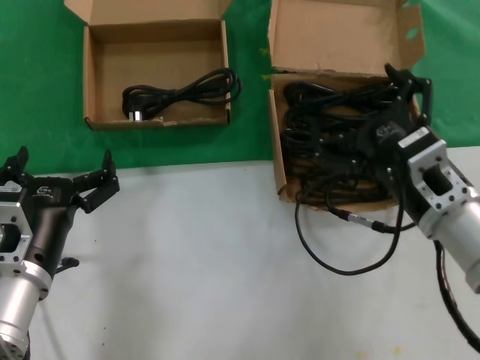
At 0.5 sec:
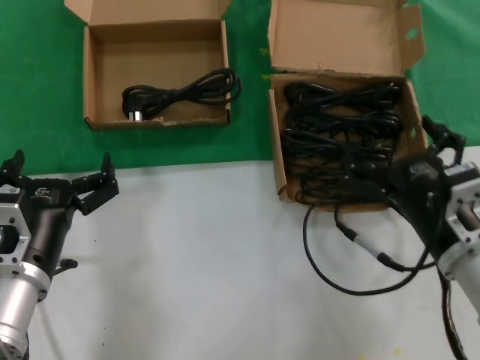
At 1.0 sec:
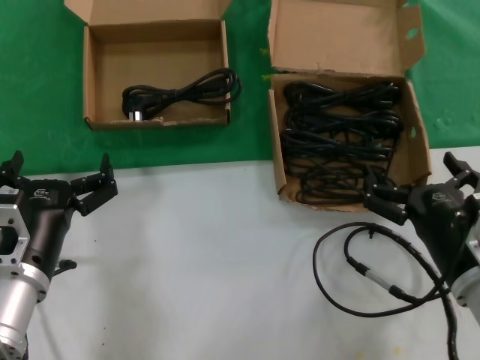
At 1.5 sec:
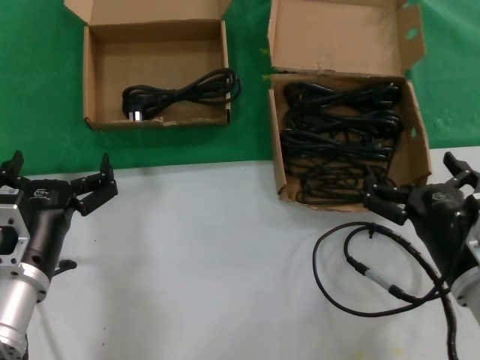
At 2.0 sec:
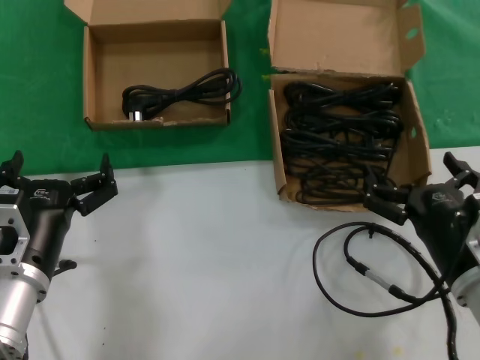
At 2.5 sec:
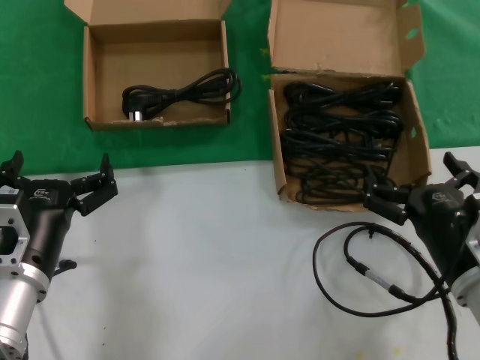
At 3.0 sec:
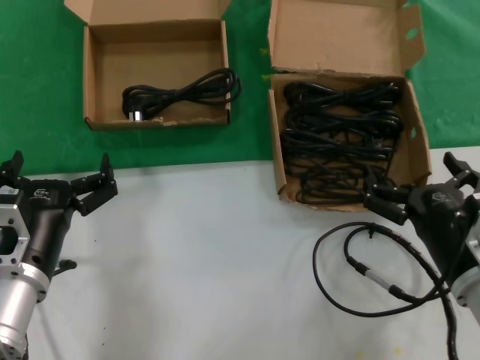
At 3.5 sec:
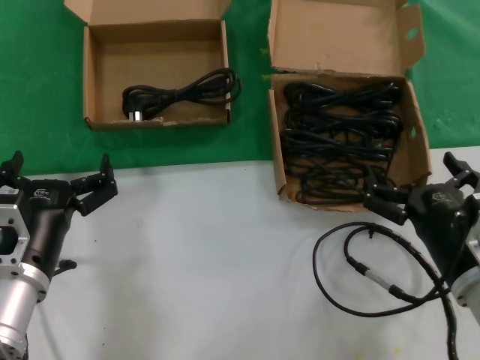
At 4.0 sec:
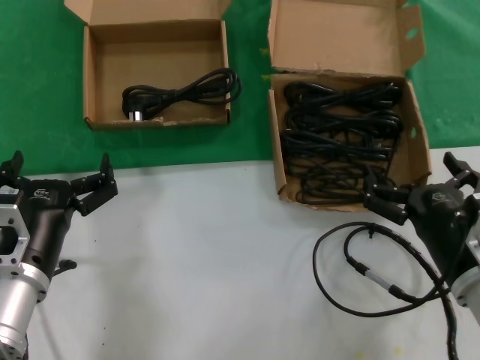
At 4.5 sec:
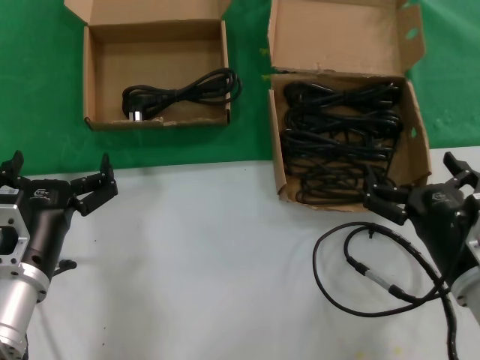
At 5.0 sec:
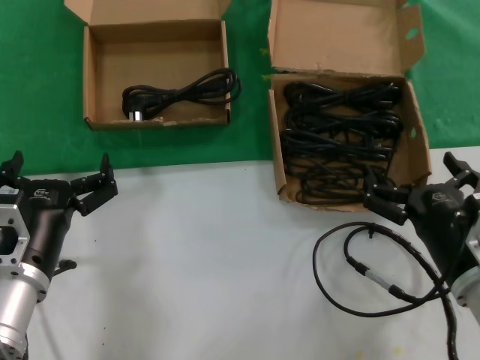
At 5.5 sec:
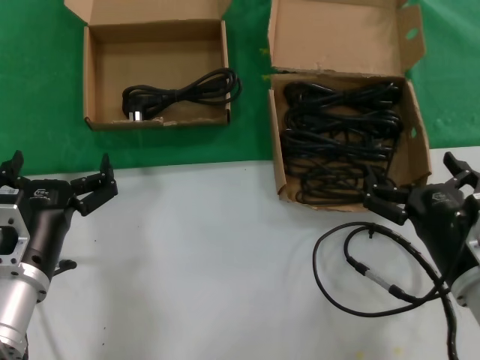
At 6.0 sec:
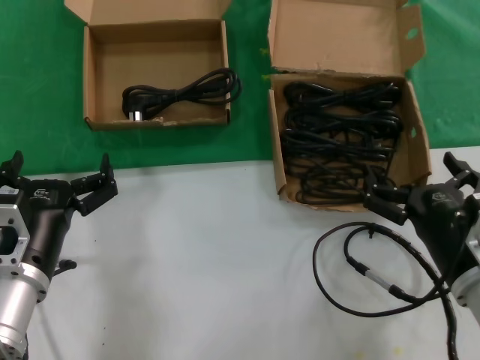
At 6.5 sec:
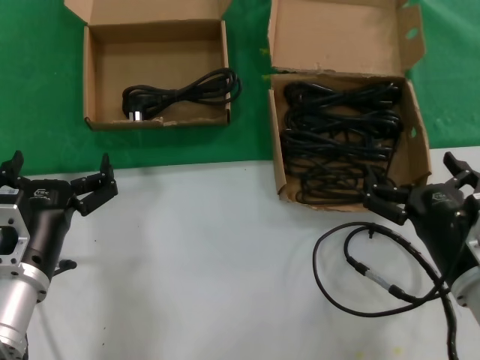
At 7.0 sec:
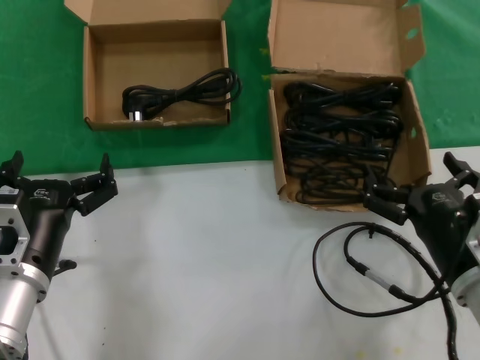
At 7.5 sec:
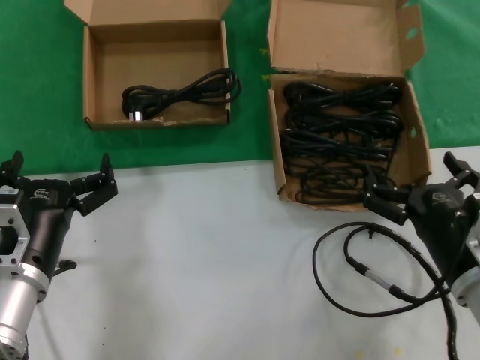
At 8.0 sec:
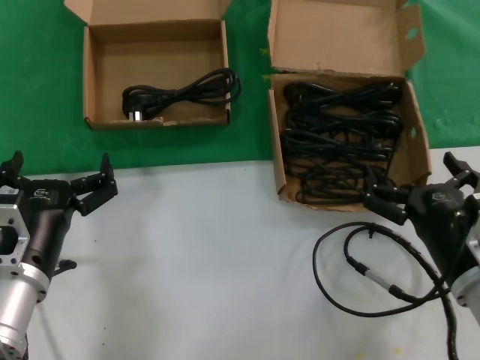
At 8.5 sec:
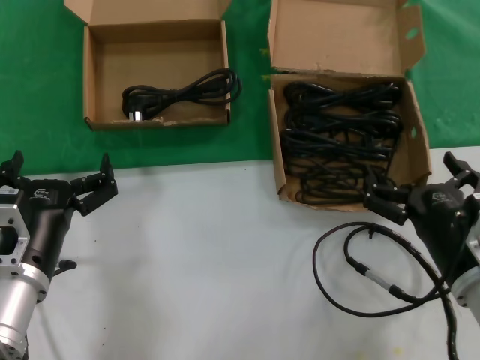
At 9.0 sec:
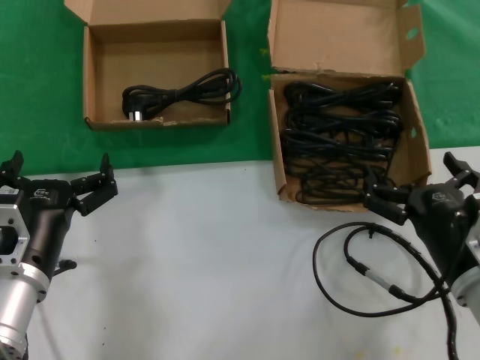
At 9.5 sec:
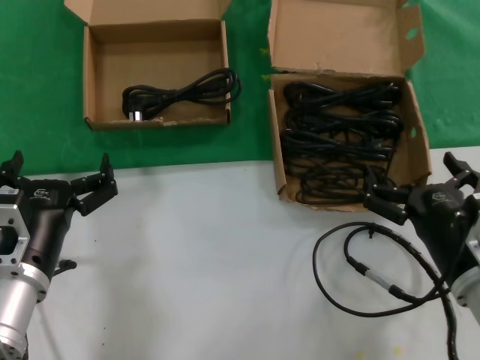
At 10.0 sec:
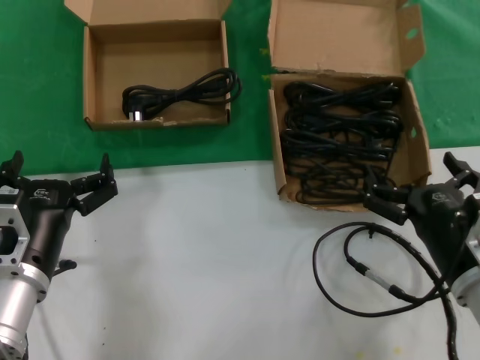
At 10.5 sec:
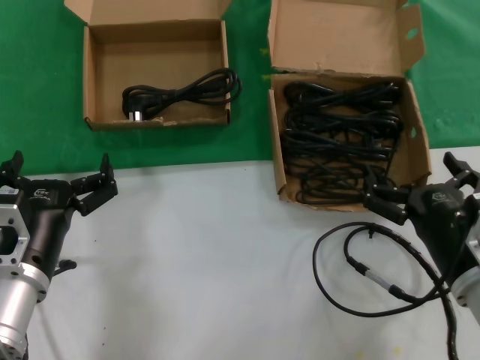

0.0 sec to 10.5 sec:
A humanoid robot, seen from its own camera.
Task of the whole recording: take the parts from the box containing them and put them into an empty box.
0.0 sec to 2.0 sec: The right hand heads downward, covering approximately 5 cm.
2.0 sec to 10.5 sec: Both hands stay put.

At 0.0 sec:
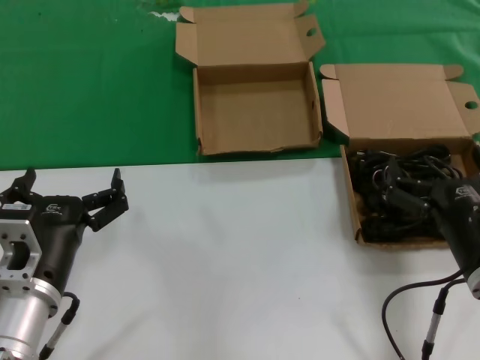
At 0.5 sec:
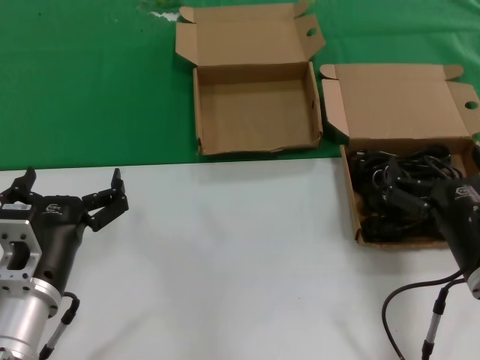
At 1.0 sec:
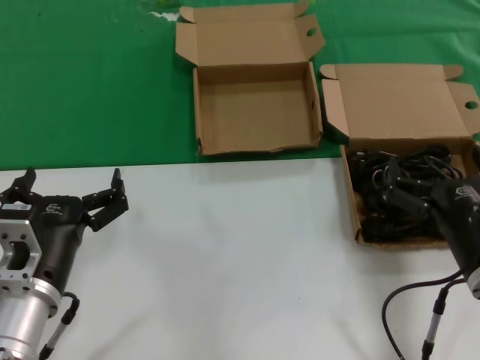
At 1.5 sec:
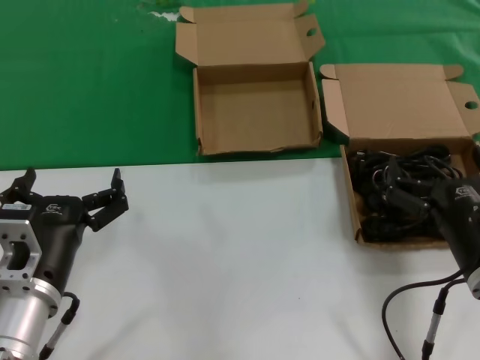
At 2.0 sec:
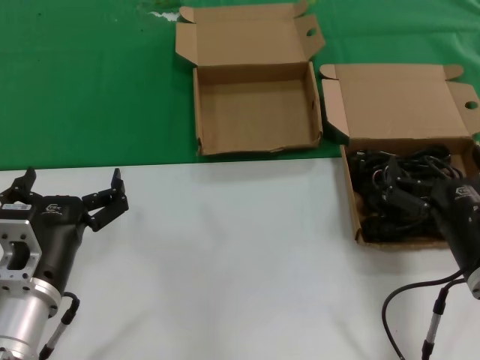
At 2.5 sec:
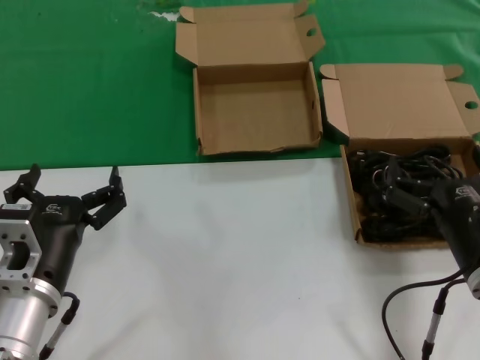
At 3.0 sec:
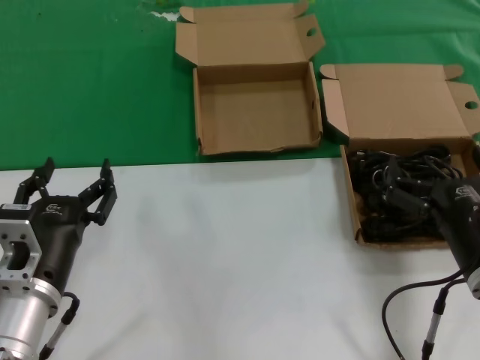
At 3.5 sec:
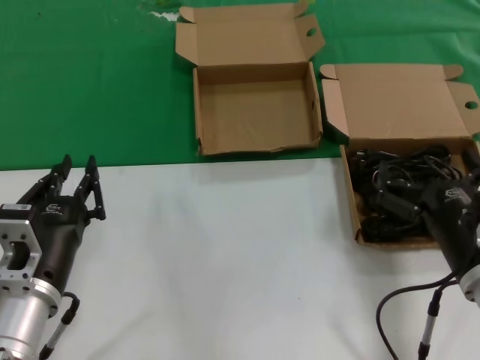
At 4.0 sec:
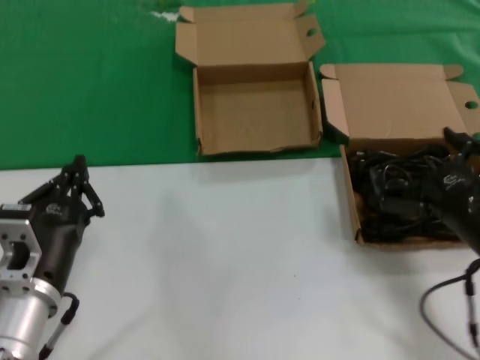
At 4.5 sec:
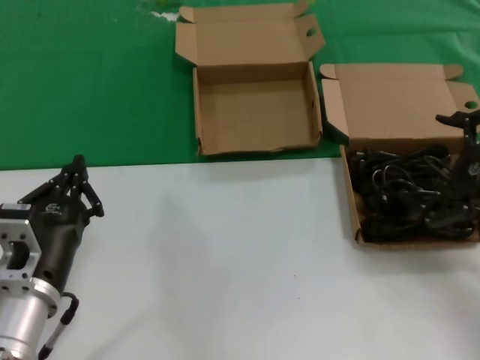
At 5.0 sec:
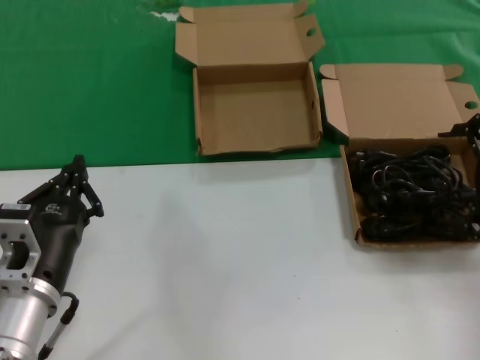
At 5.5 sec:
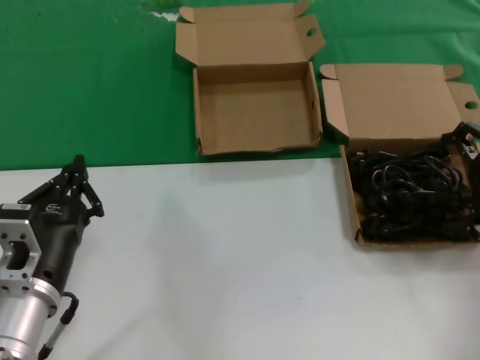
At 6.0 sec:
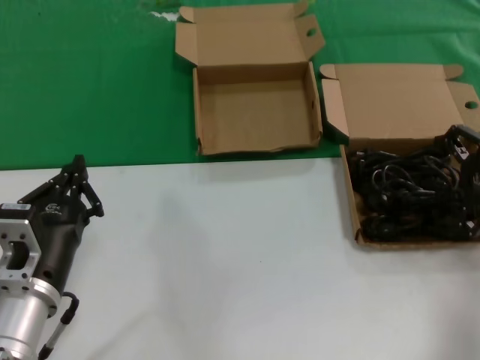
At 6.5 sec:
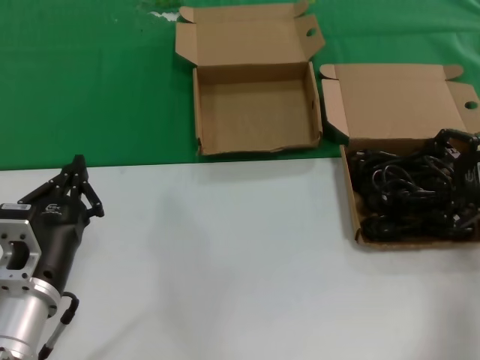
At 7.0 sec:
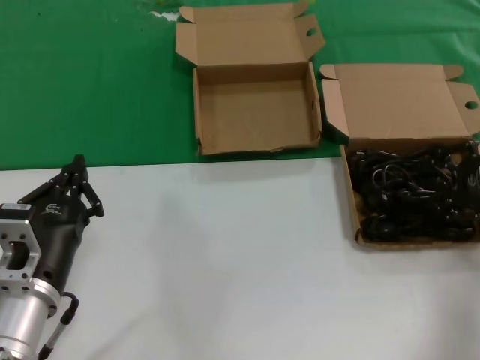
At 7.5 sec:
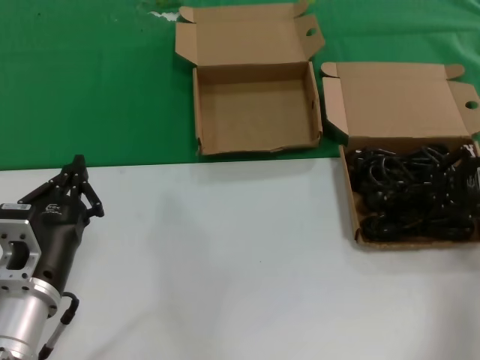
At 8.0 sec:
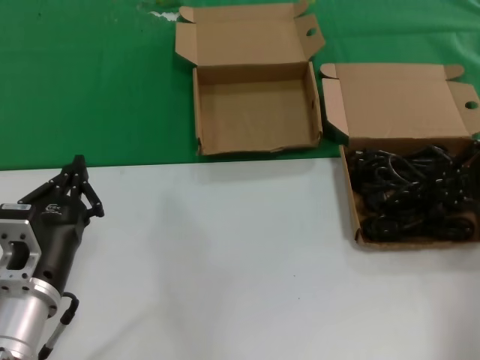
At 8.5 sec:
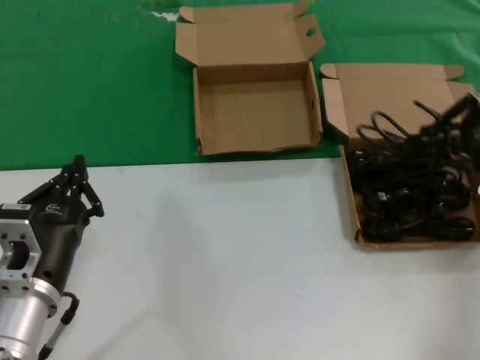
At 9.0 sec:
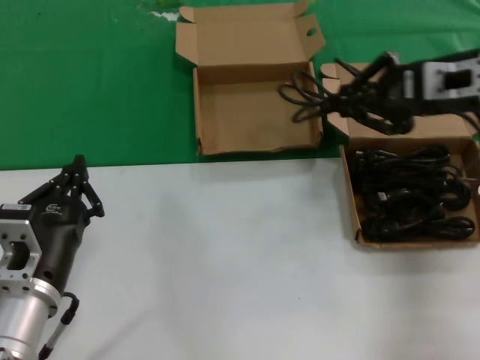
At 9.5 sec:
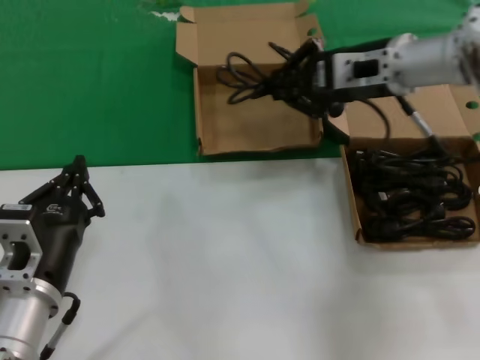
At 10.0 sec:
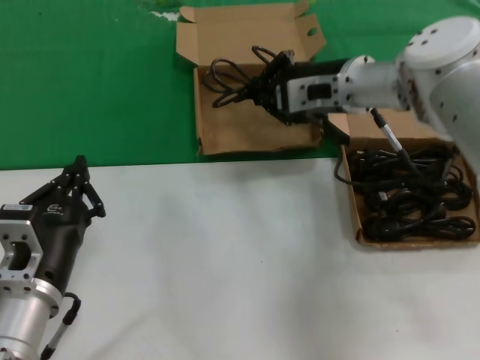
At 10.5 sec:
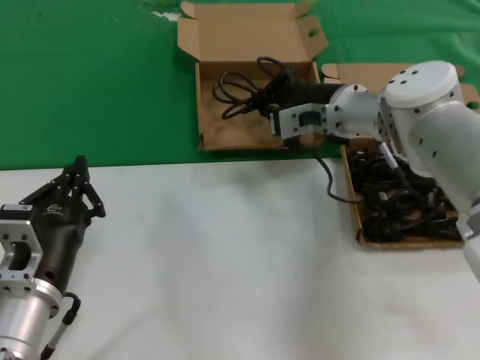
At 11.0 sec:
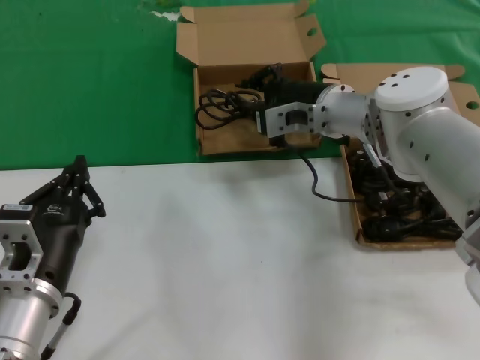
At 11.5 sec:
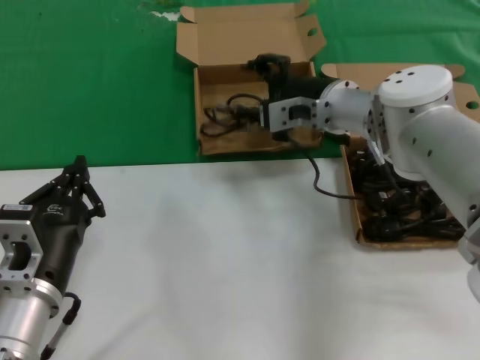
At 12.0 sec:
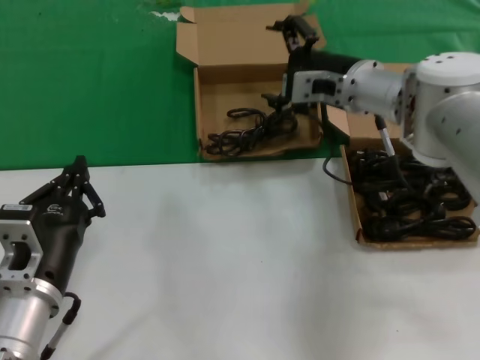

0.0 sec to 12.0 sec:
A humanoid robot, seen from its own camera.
Task of the whole recording: take the parts from the box containing them and put them into an empty box.
Step, 0.0 sec to 7.5 sec: Grasp the data cable.
Step, 8.0 sec to 11.5 sec: Place the data cable in the another box.
0.0 sec to 2.0 sec: Both hands stay put.
2.0 sec to 4.0 sec: The right hand moves approximately 5 cm.
4.0 sec to 6.0 sec: The right hand is displaced forward, to the right and upward by about 20 cm.
8.0 sec to 10.0 sec: The right hand moves to the left and forward, about 30 cm.
10.0 sec to 12.0 sec: The hands make only small movements.

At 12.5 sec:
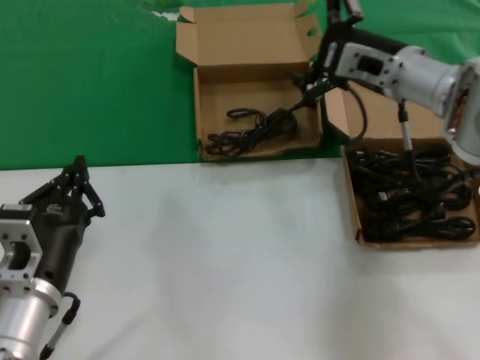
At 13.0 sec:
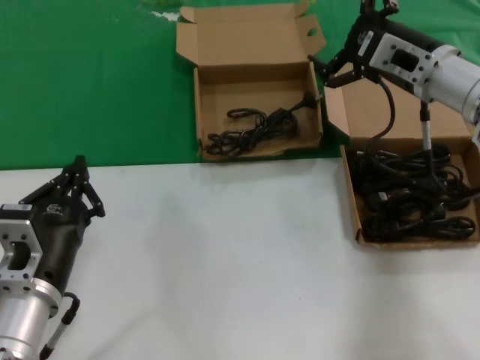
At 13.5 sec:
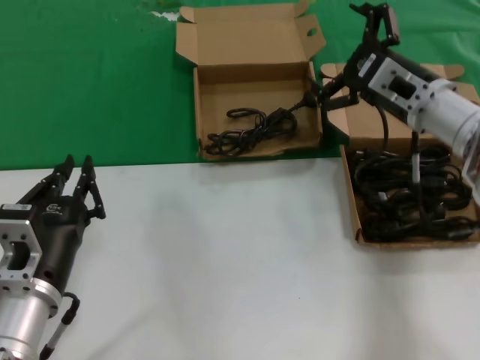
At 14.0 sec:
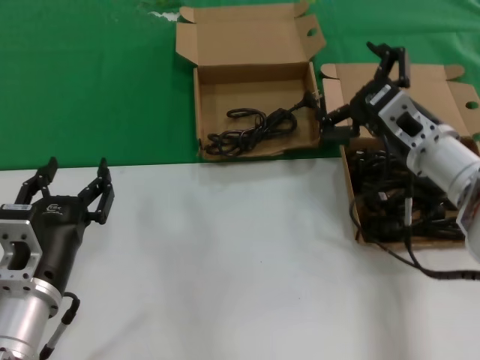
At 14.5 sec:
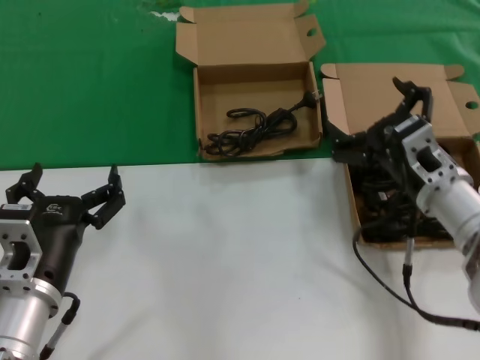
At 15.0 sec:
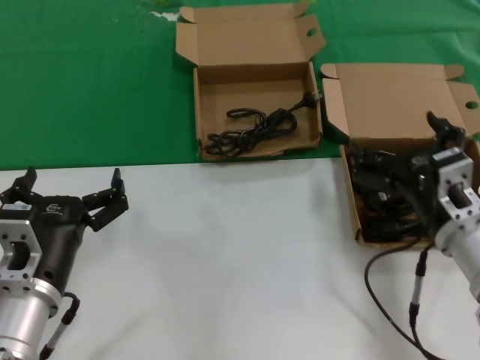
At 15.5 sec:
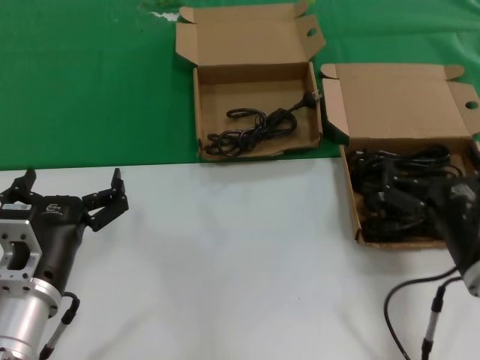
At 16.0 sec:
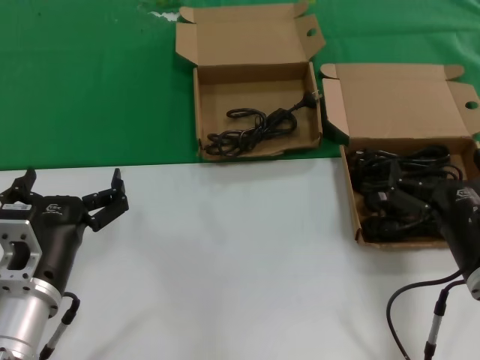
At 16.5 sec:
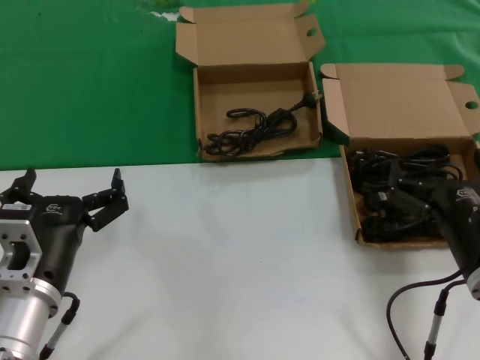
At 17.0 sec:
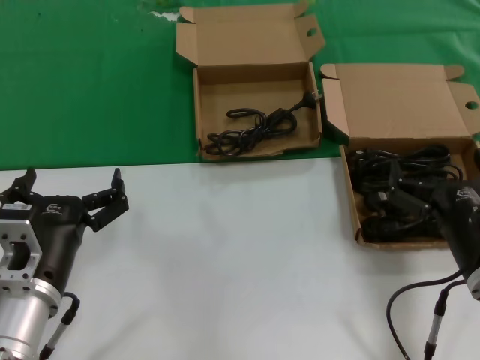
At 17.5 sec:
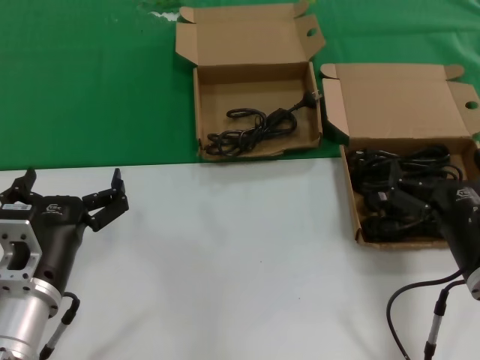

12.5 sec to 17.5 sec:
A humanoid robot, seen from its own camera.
Task of the whole recording: take the parts from the box containing them and put them into an empty box.
12.5 sec to 15.0 sec: The right hand travels backward and downward by some 25 cm.
15.0 sec to 17.5 sec: The right hand goes about 5 cm backward.
